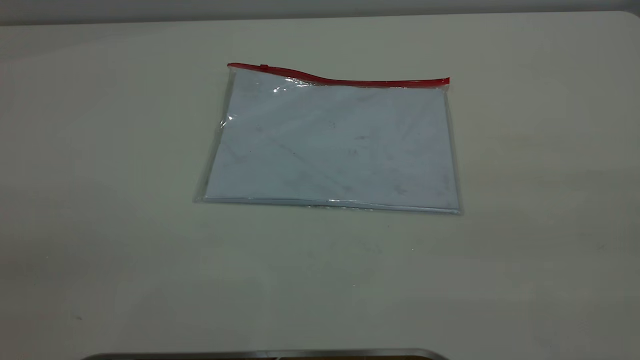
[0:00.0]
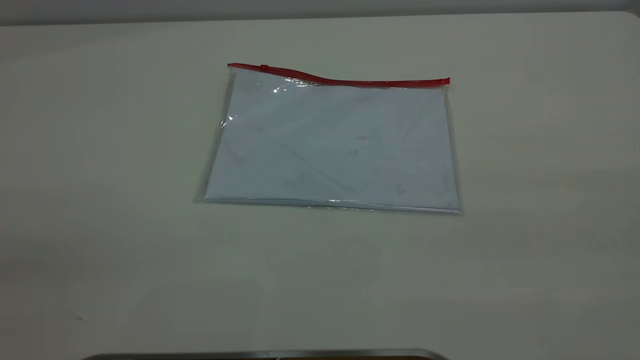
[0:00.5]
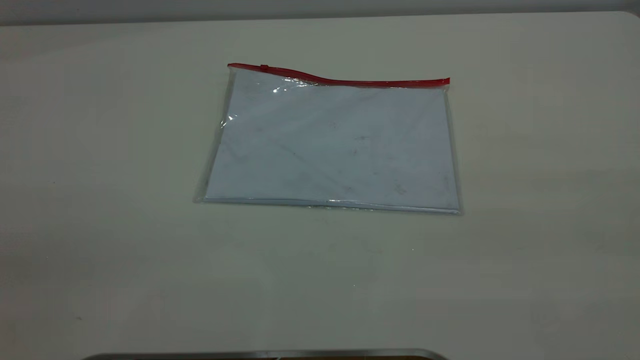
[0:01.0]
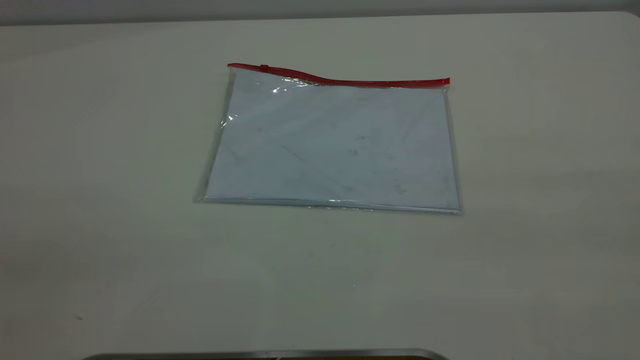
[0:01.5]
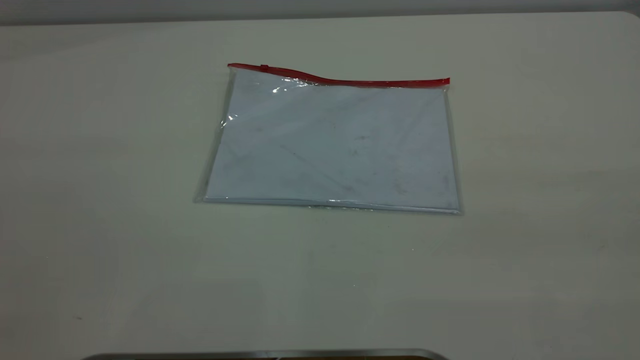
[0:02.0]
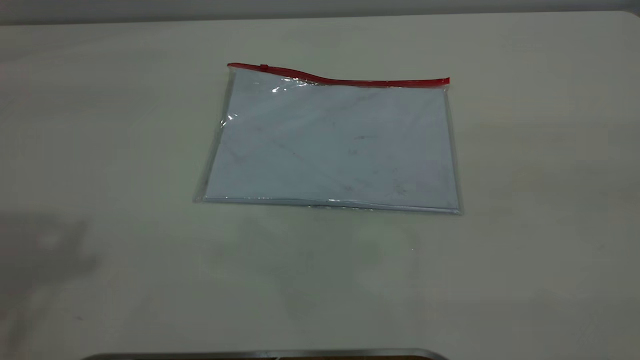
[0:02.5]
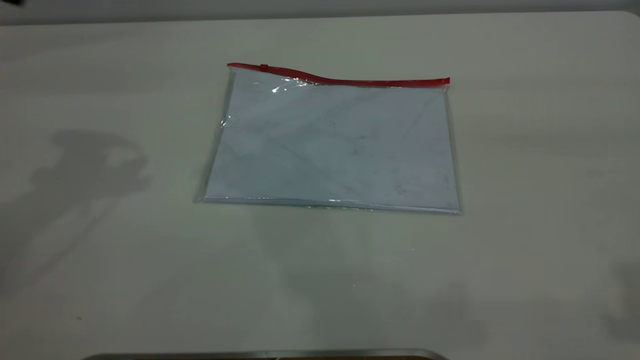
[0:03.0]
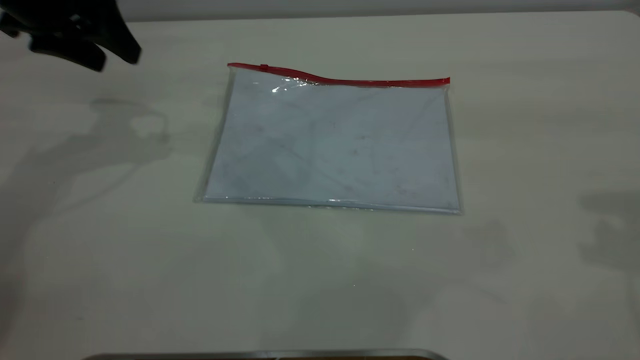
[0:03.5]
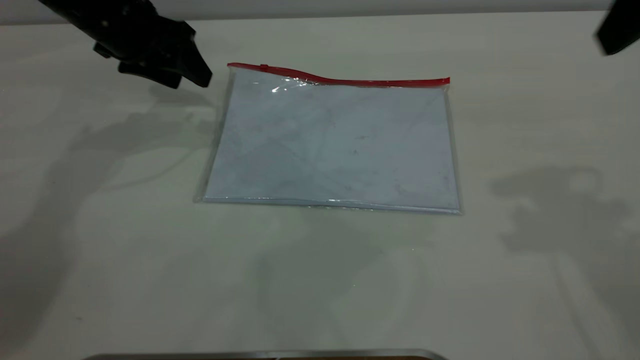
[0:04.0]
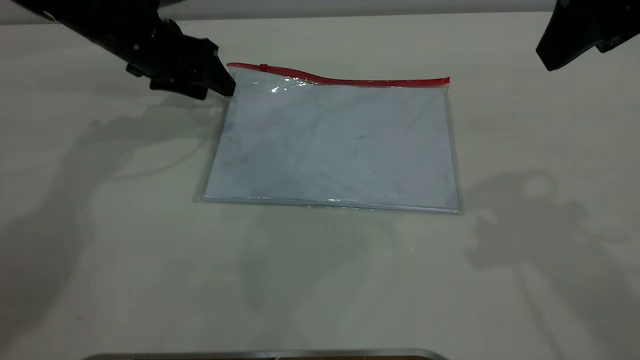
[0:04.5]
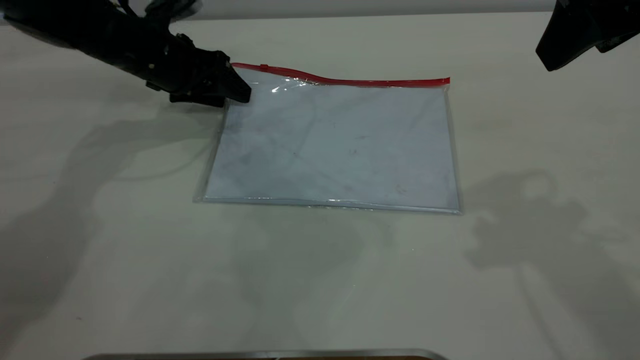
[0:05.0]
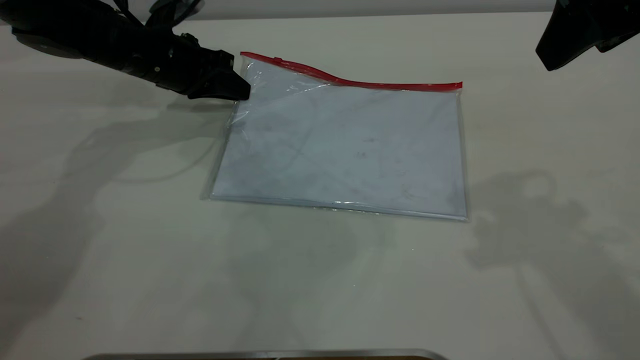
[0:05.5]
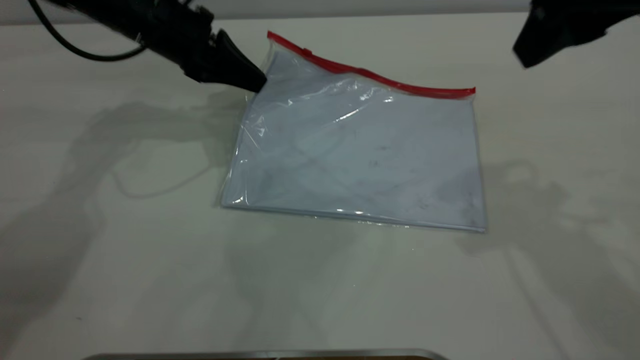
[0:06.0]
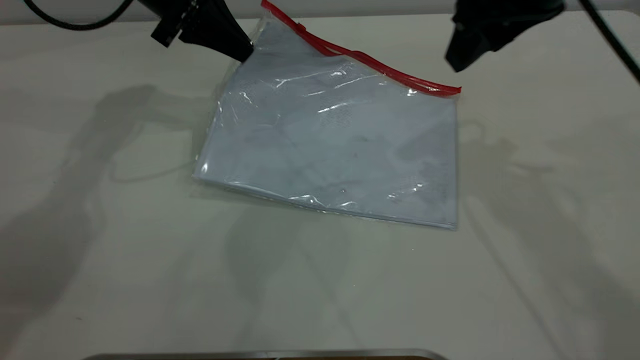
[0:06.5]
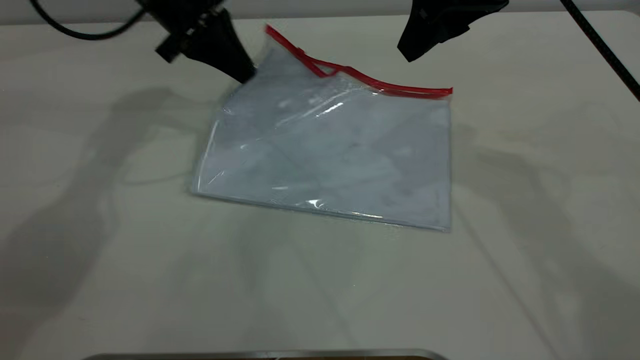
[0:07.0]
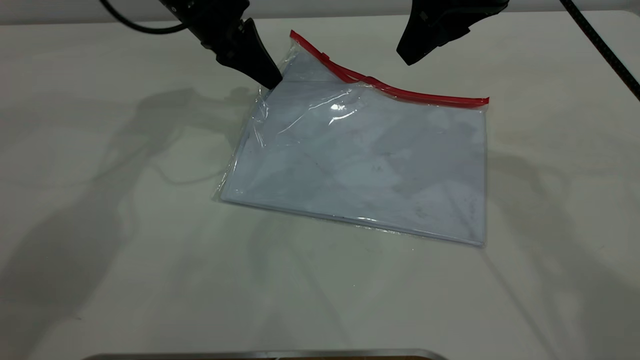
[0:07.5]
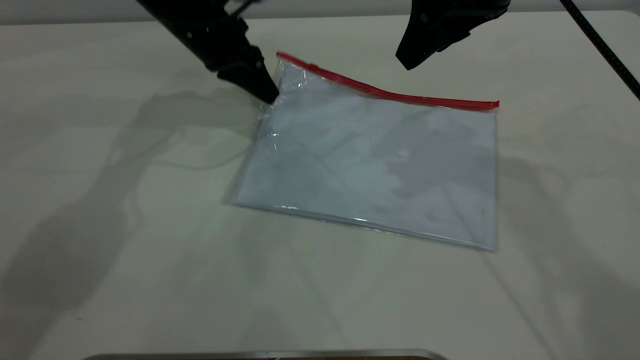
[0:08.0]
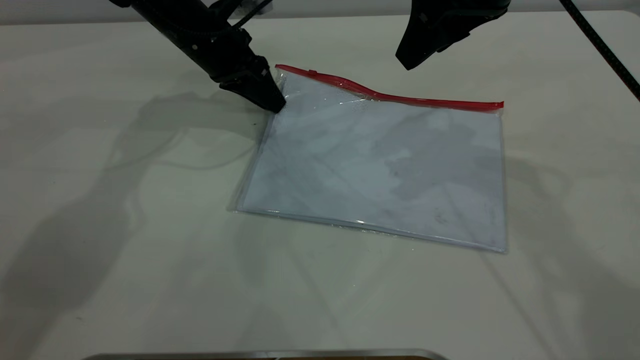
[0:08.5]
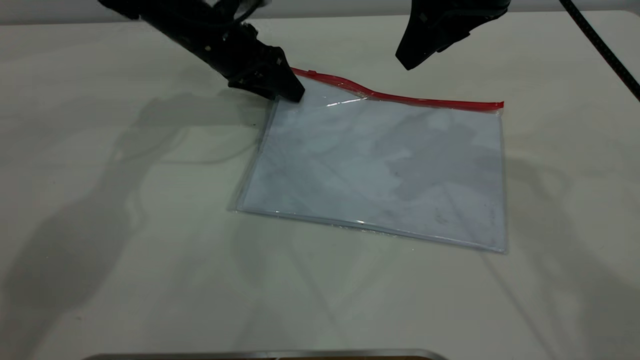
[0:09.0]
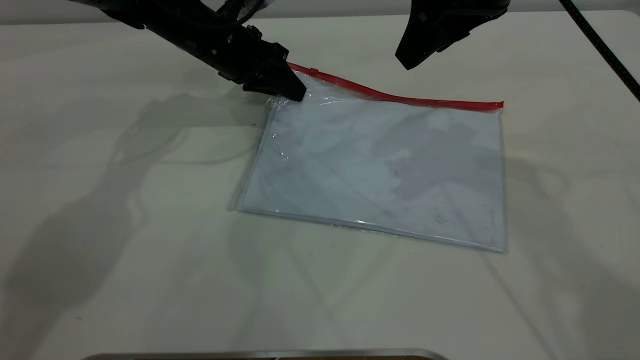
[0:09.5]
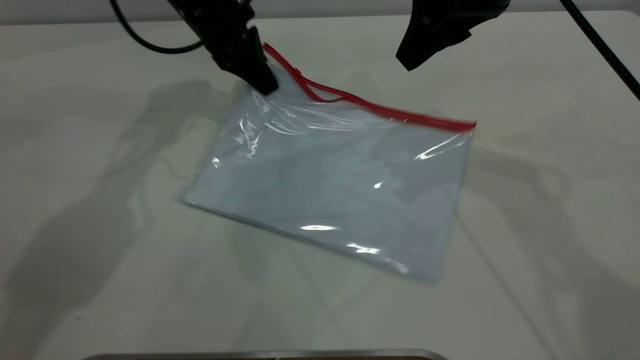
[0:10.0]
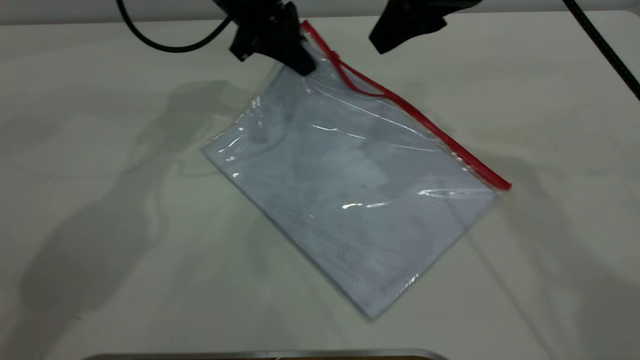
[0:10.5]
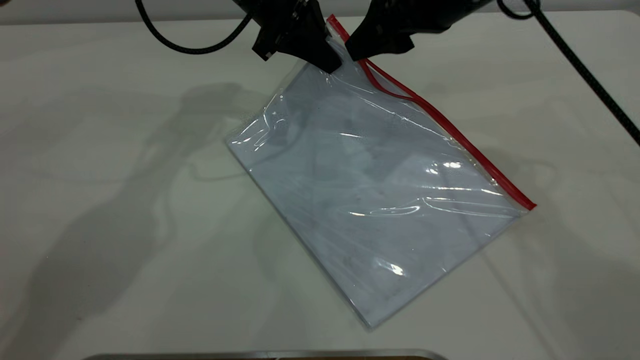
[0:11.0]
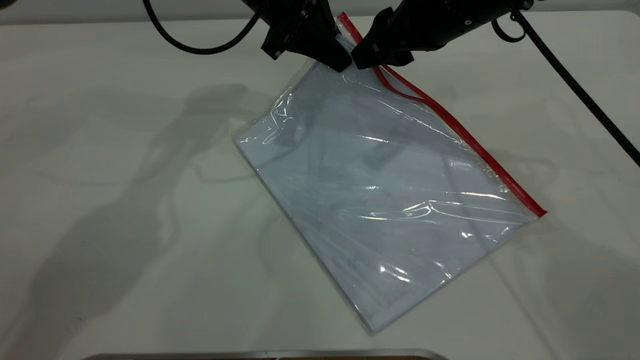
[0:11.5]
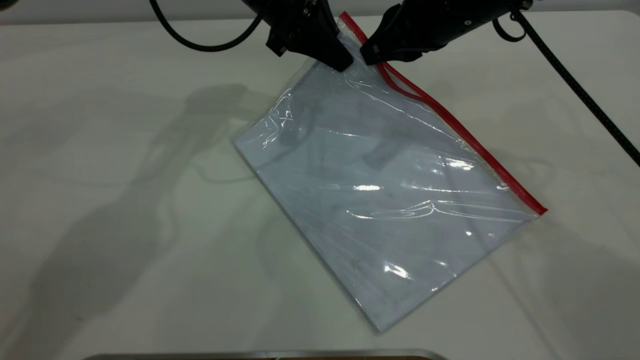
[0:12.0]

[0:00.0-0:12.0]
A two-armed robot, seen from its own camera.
Step, 0:00.0 to 0:10.0: Pick up the transparent plastic bag with the left gripper.
0:02.0 to 0:04.0: The right gripper travels forward by about 30 cm. The left gripper heads forward and downward, covering roughly 50 cm.
0:04.0 to 0:06.0: The left gripper moves approximately 5 cm, and closes its fingers.
0:06.0 to 0:08.0: The left gripper ends up some 5 cm from where it was. Meanwhile the right gripper goes some 10 cm forward and to the left.
0:08.0 to 0:10.0: The left gripper opens, then closes once more.
0:10.0 to 0:12.0: The left gripper moves to the right, roughly 5 cm, while the right gripper goes some 5 cm downward, and closes.

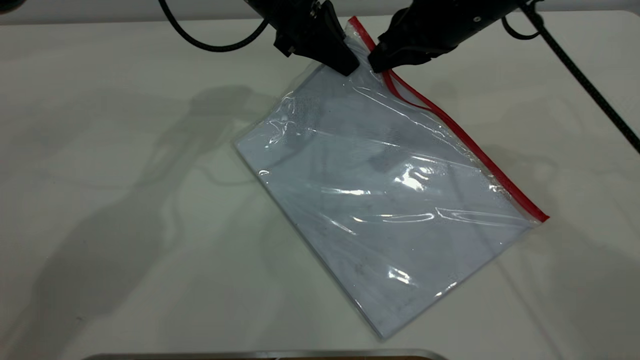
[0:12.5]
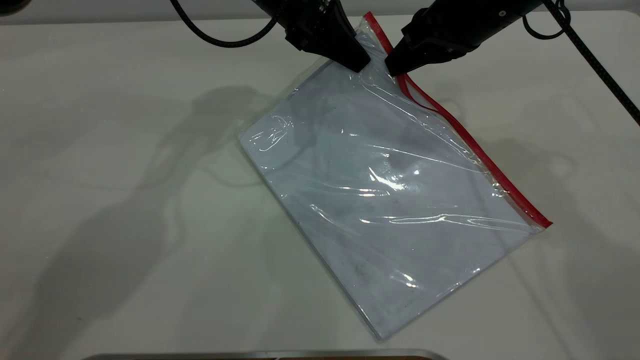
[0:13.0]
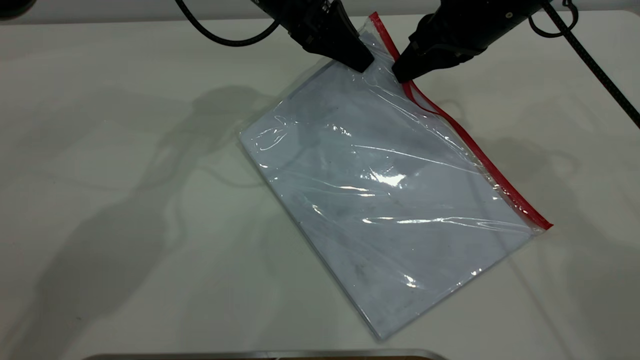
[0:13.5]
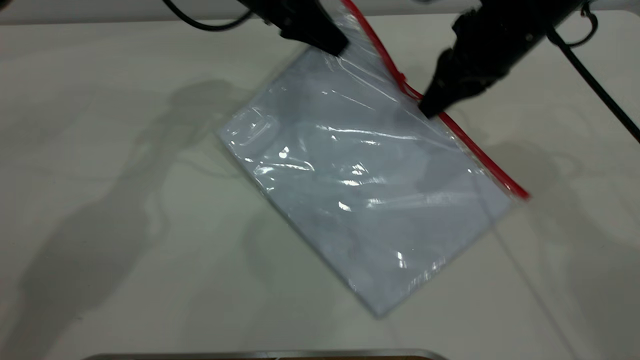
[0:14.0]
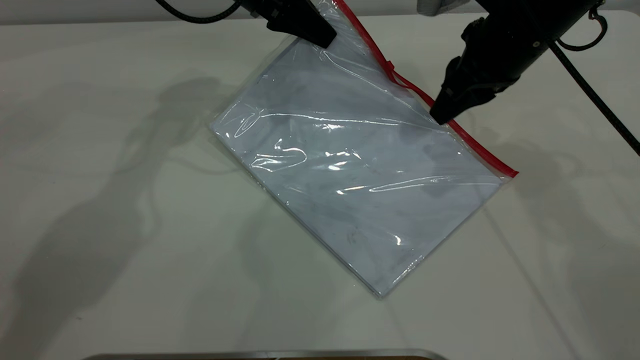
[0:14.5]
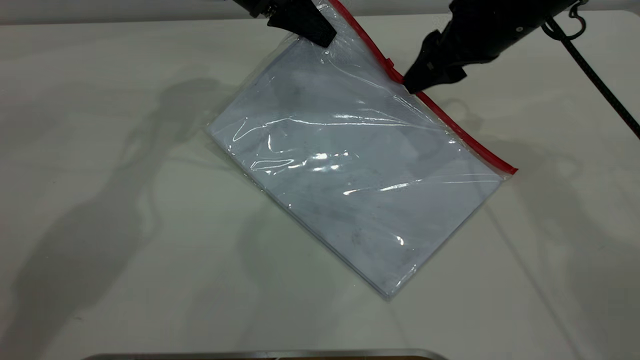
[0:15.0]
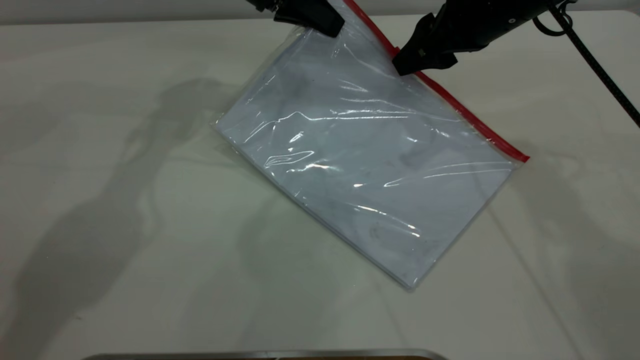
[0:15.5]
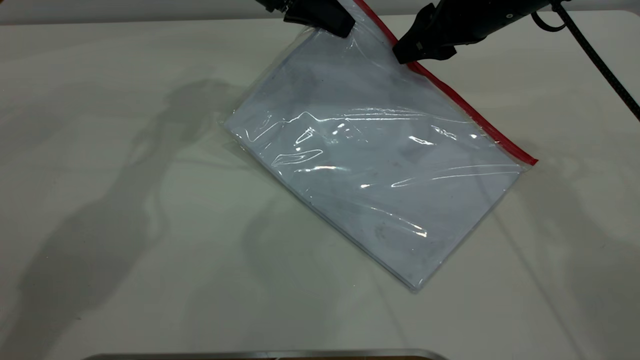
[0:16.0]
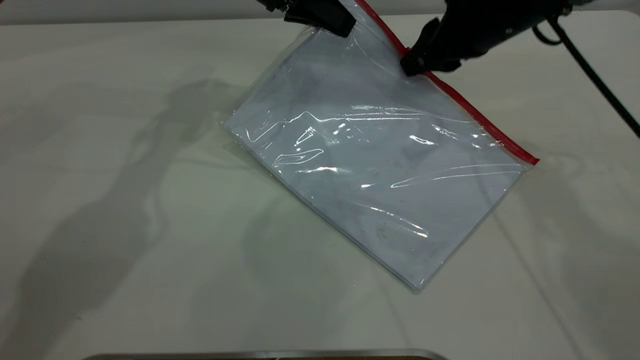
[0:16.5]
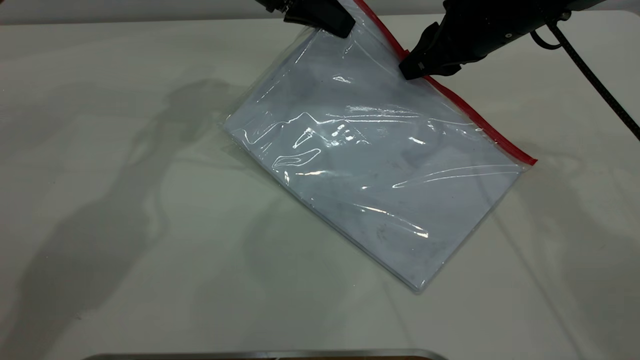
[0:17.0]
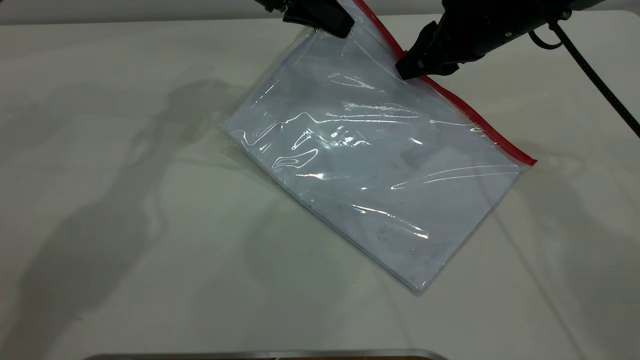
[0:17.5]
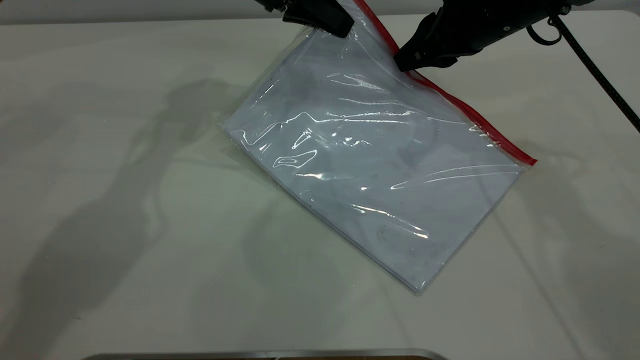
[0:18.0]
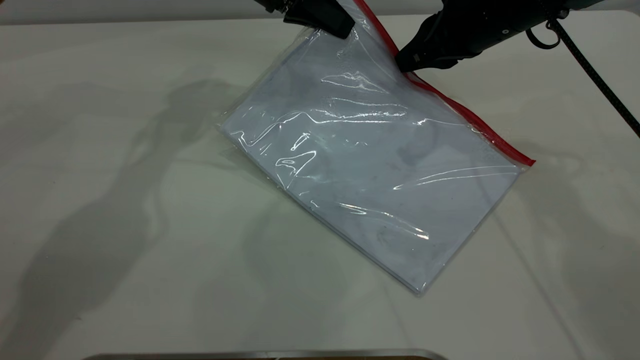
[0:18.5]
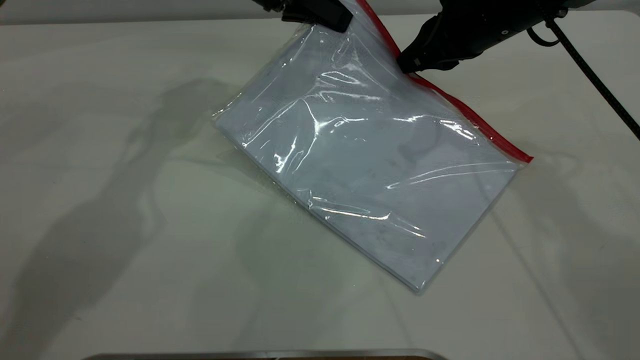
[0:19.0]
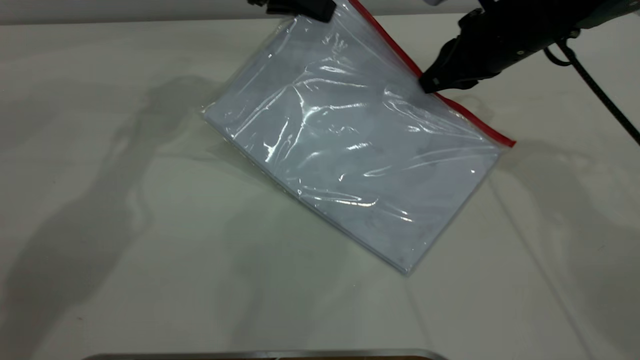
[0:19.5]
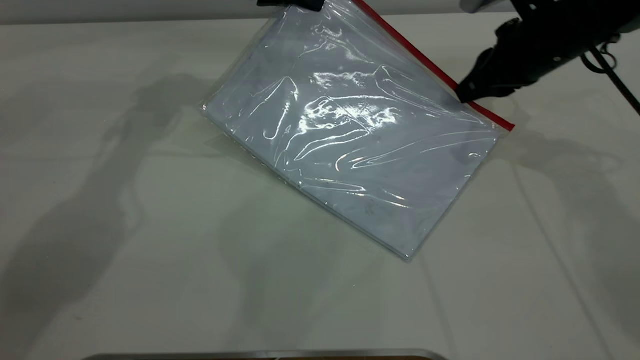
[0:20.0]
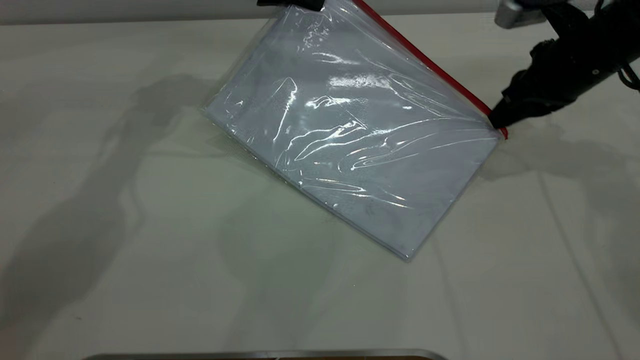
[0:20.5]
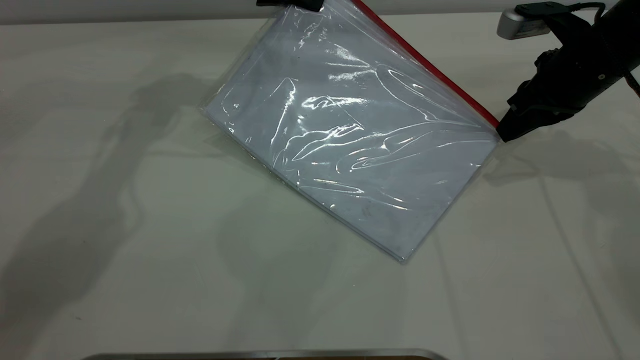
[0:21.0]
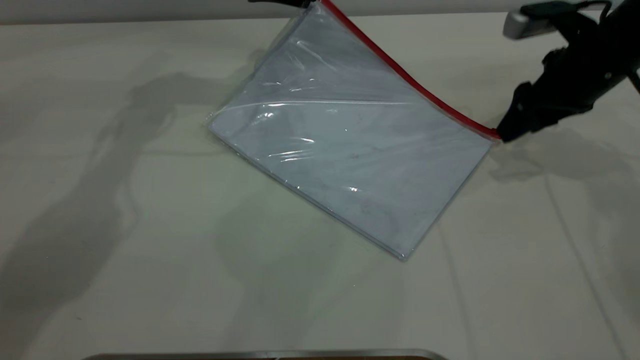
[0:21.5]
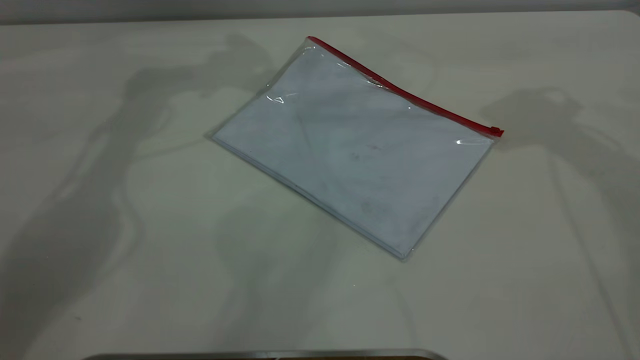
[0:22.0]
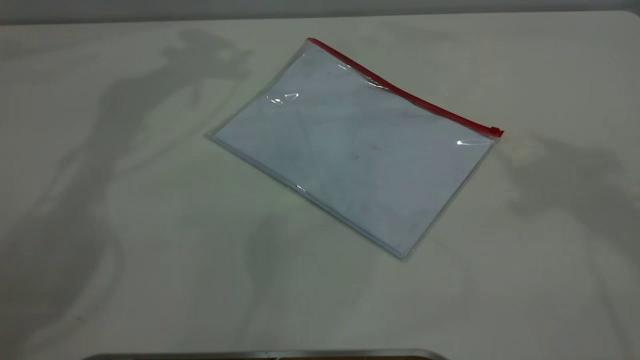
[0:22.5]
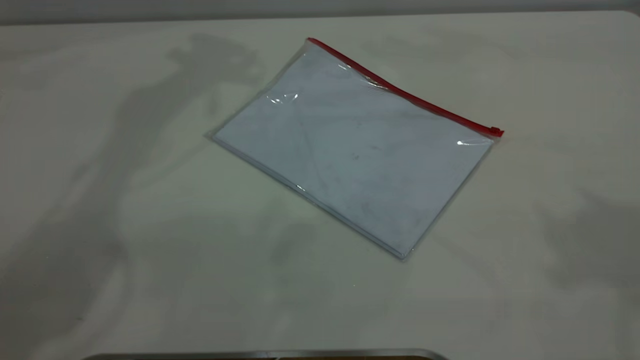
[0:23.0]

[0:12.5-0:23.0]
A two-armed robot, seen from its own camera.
Step, 0:12.5 to 0:21.0: Pulling up the zipper on the transparent plastic bag with the right gripper to close it.
0:12.5 to 0:14.5: The right gripper opens its fingers.
0:14.5 to 0:16.5: The right gripper opens, then closes once more.
0:16.5 to 0:19.0: The right gripper closes its fingers.
0:19.0 to 0:21.0: The right gripper is displaced to the right by roughly 10 cm.
0:21.0 to 0:23.0: The right gripper is displaced upward and backward by roughly 40 cm, and opens up. The left gripper goes some 25 cm upward, and opens.
